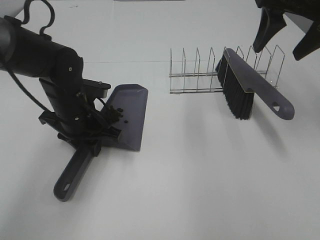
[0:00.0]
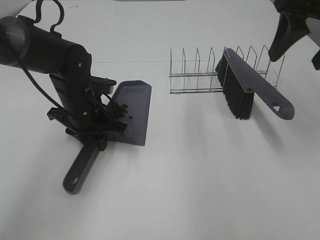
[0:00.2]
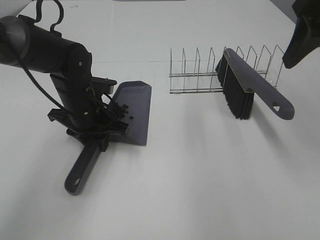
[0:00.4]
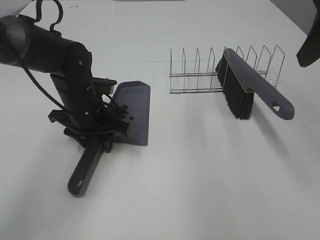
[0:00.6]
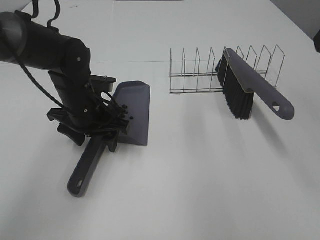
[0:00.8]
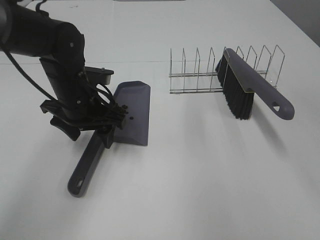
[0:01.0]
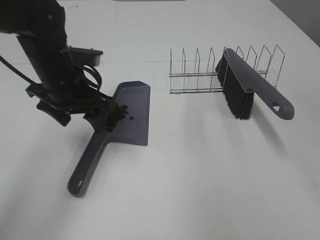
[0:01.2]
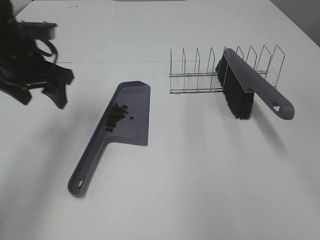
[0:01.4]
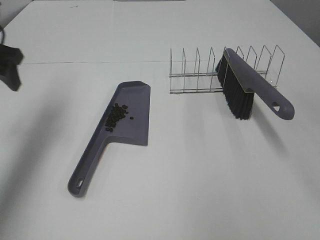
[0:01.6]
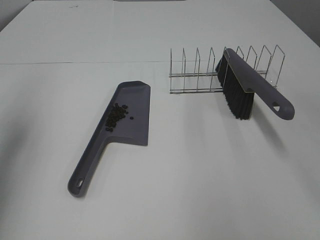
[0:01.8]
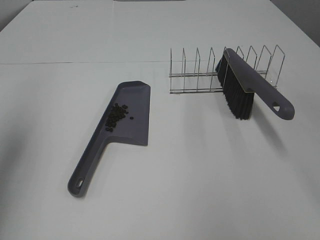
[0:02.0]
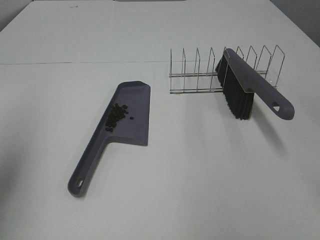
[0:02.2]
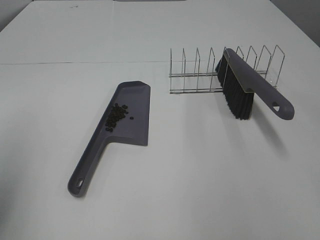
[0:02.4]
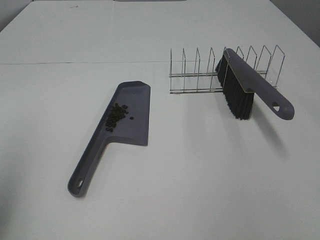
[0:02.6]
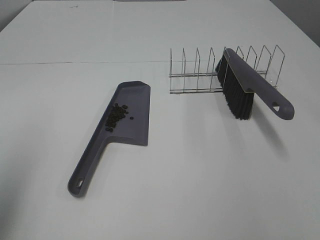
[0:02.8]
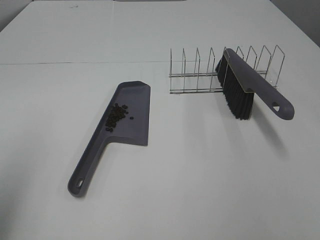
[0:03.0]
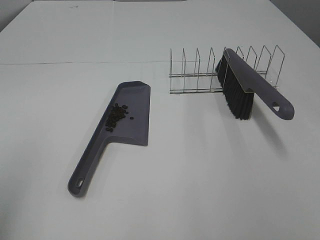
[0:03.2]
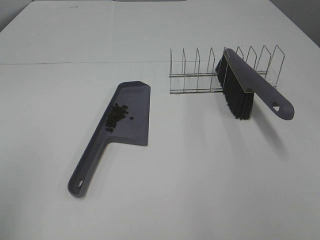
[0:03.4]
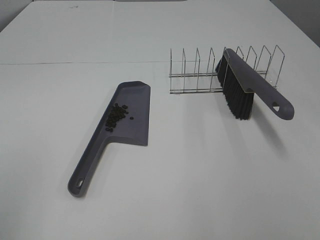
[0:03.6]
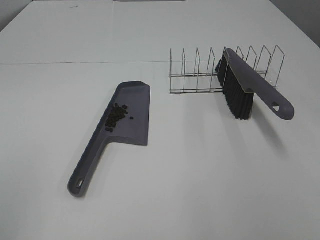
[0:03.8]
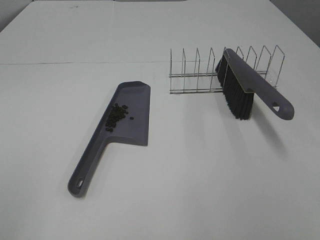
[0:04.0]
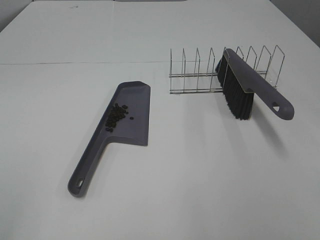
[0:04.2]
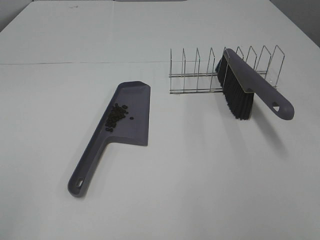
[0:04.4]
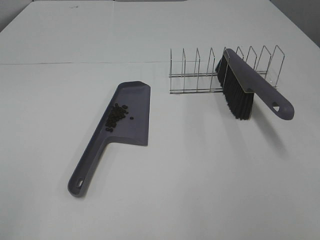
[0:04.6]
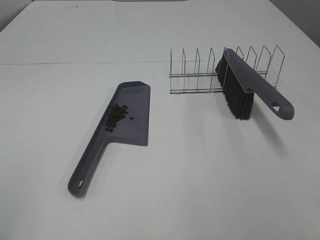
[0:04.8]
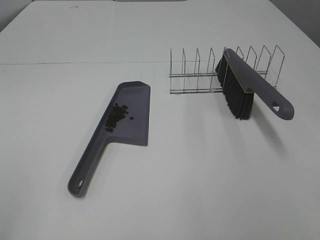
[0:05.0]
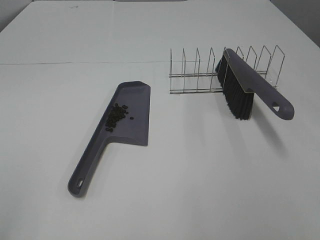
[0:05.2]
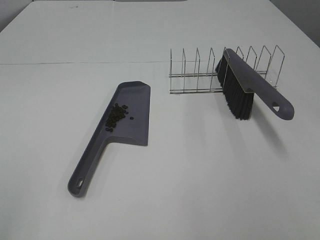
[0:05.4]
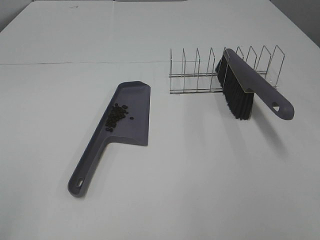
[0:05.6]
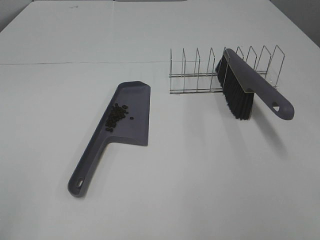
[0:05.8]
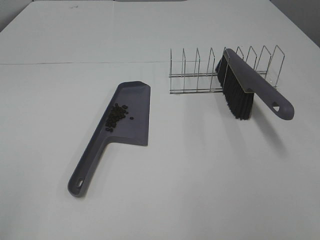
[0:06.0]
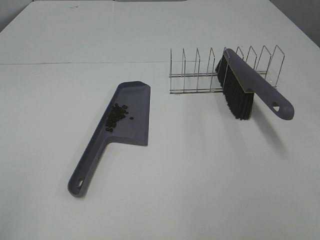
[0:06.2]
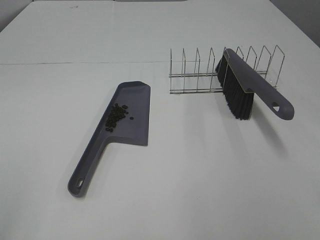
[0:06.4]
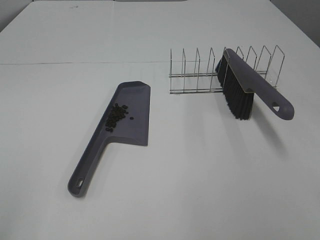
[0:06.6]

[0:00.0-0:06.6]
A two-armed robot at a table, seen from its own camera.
Task of the whole recording: Sweep Coffee Bean.
0:00.0 to 0:01.6: The right gripper heads backward and upward, covering approximately 20 cm, while the left gripper travels to the left and upward by some 20 cm, and opens its fingers.
0:01.6 to 0:03.2: The left gripper is displaced backward by roughly 30 cm.
0:05.0 to 0:06.6: Both grippers stay about where they are.
